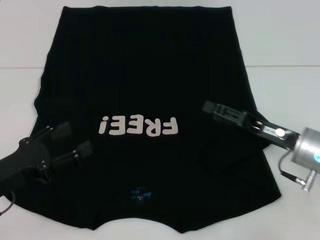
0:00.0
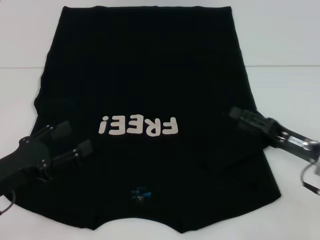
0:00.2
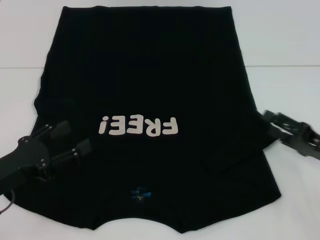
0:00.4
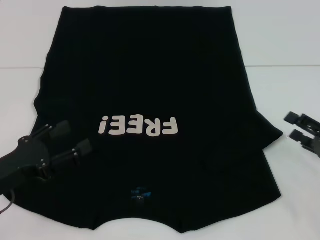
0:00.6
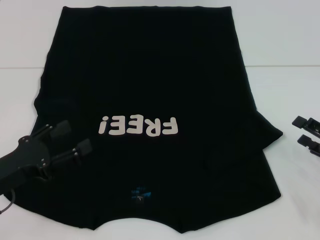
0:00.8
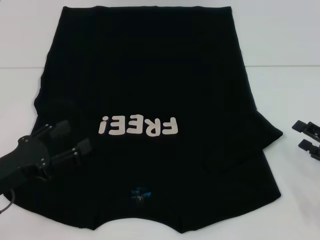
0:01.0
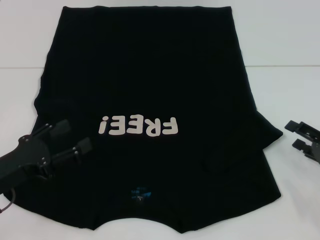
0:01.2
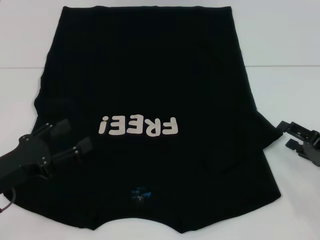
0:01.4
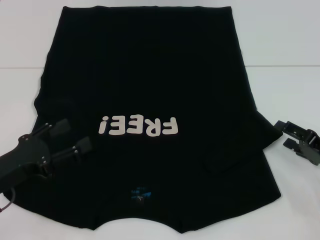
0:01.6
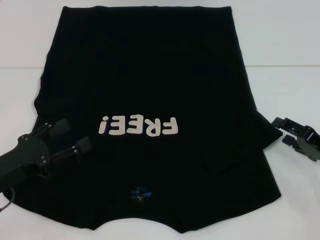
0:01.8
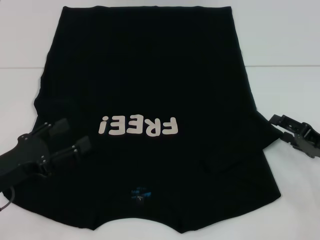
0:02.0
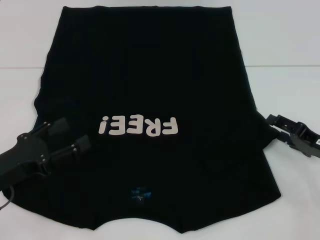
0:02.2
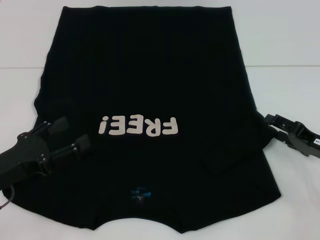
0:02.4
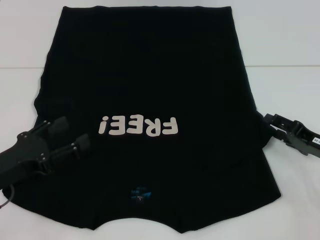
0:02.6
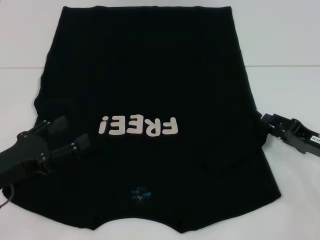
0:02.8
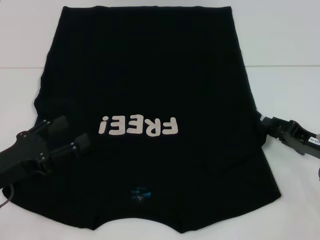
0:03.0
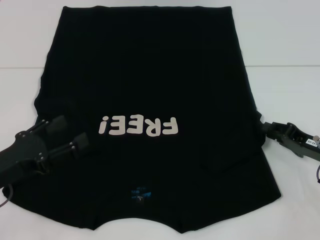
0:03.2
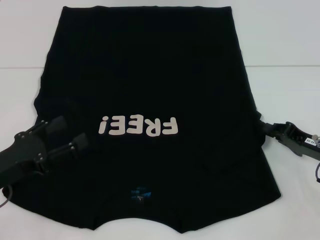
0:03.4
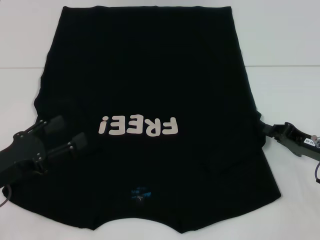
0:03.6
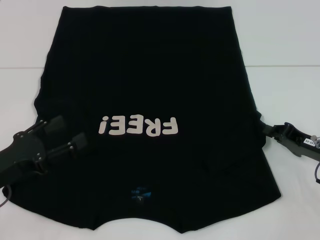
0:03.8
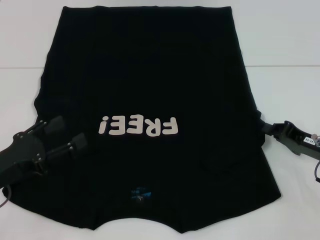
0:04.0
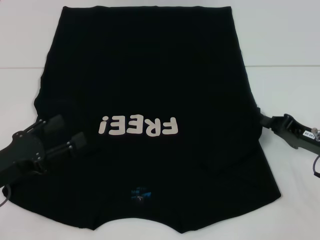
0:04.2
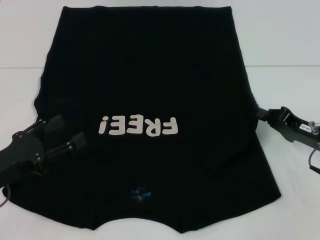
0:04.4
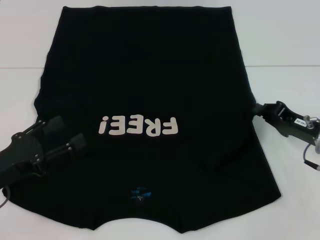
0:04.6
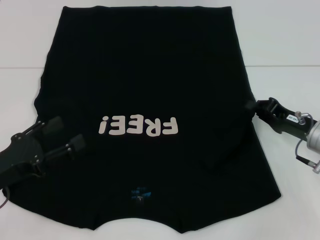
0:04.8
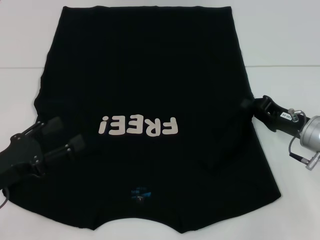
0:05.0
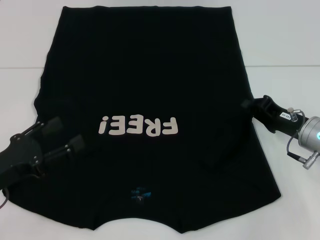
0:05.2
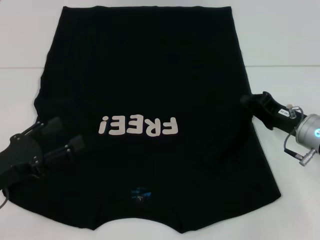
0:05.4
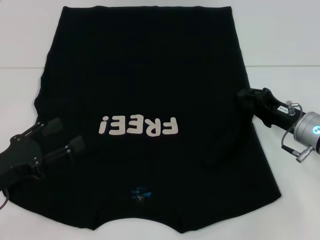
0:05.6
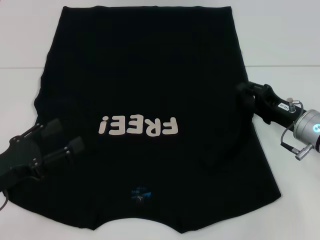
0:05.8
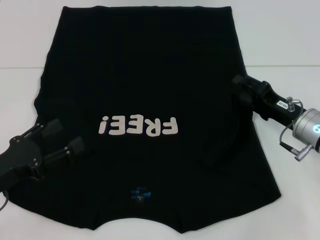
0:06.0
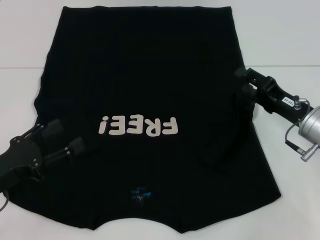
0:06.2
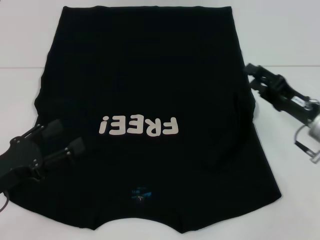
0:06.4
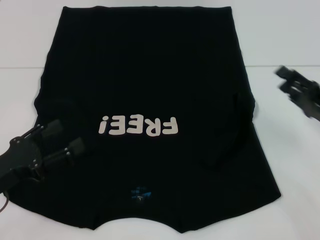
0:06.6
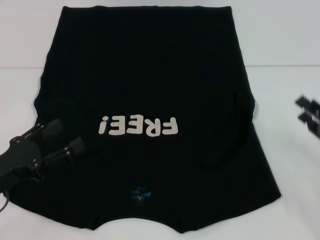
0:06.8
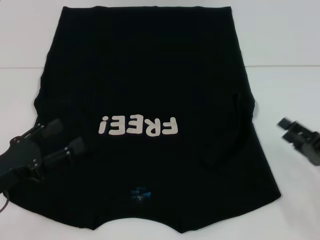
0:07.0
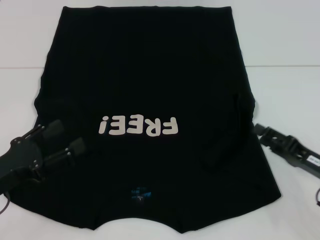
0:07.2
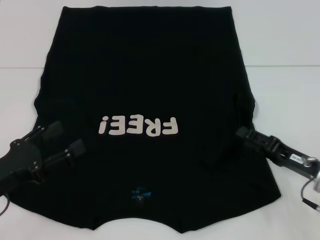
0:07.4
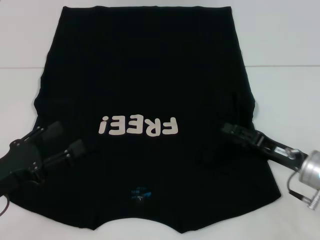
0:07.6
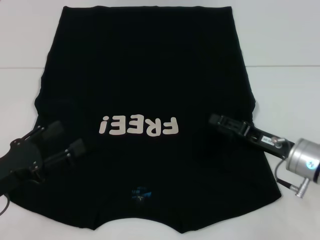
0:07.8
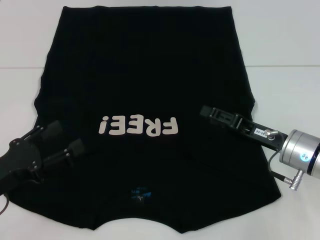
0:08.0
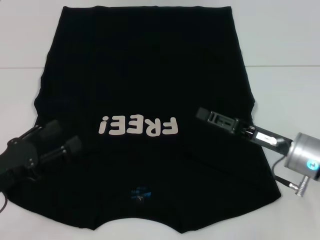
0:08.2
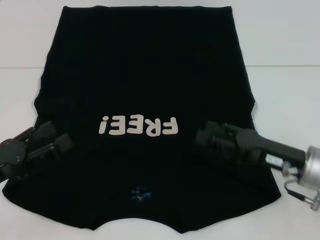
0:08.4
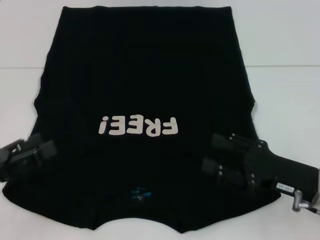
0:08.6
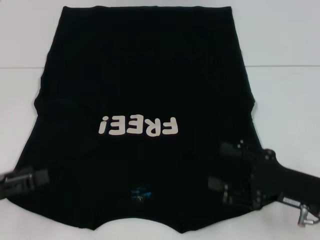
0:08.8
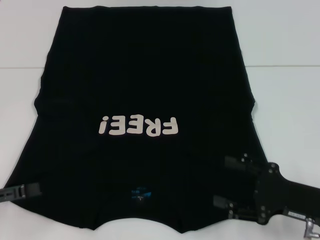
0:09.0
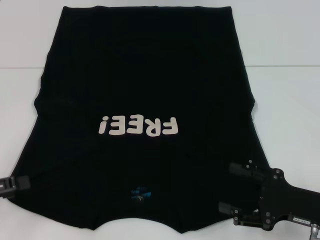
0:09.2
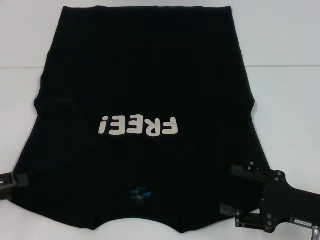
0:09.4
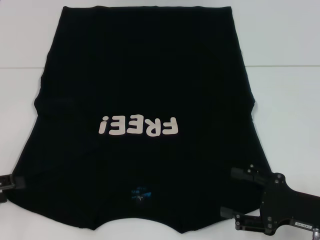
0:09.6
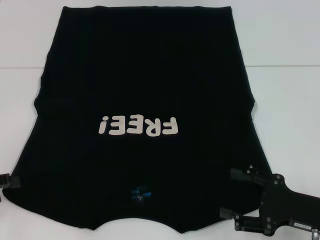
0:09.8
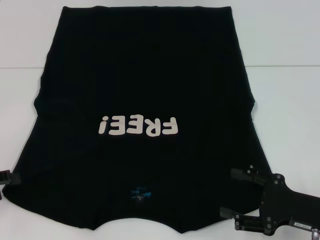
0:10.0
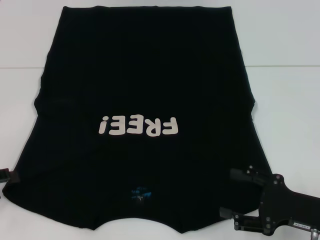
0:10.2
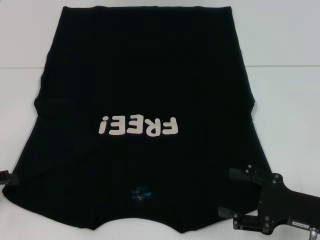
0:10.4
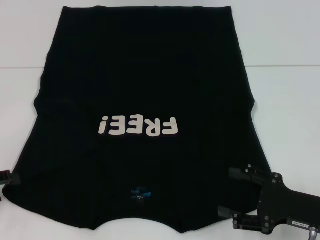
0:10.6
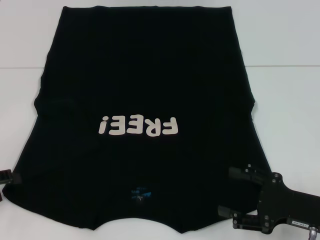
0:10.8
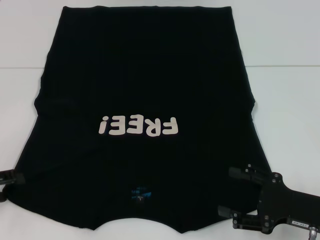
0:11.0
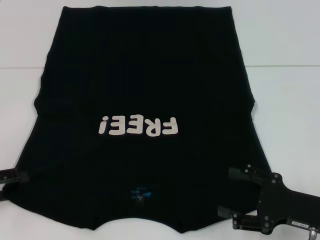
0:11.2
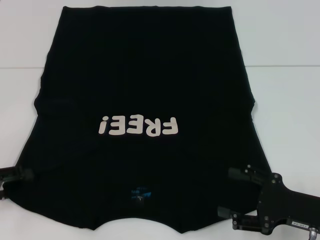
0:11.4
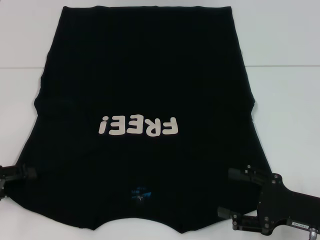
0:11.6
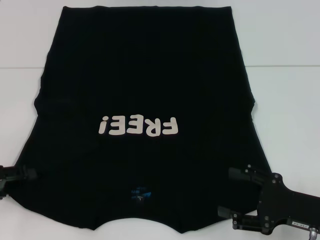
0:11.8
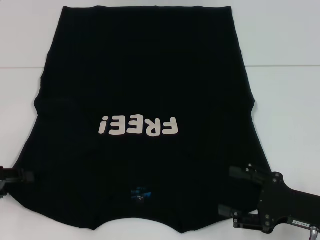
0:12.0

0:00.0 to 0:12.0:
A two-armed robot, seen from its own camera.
0:00.0 to 0:01.6: The right gripper shifts about 10 cm to the right.
0:01.6 to 0:03.0: There are only small adjustments of the grippers.
0:03.0 to 0:04.4: The right gripper closes.
0:04.4 to 0:06.0: The right gripper moves approximately 5 cm, and opens up.
0:06.0 to 0:07.6: The right gripper goes some 5 cm backward.
0:07.6 to 0:09.0: The right gripper moves backward, about 5 cm. The left gripper travels to the left by roughly 5 cm.
0:10.4 to 0:12.0: There are only small adjustments of the grippers.

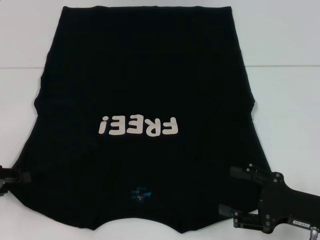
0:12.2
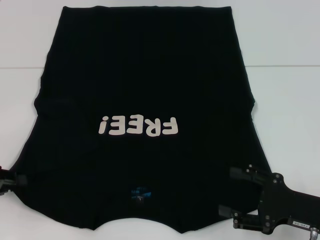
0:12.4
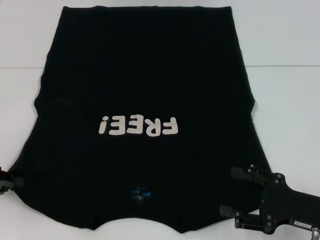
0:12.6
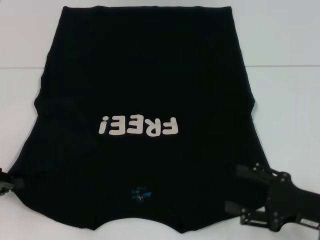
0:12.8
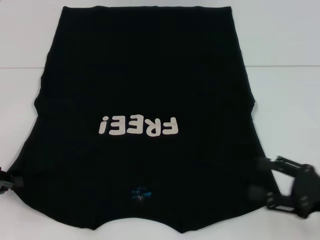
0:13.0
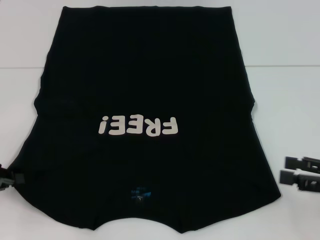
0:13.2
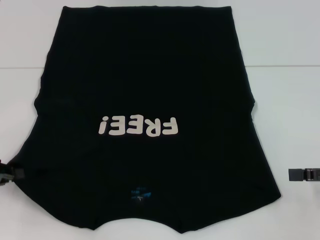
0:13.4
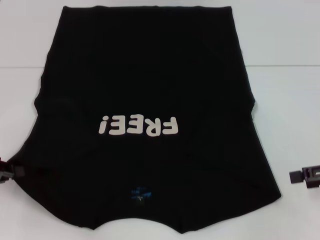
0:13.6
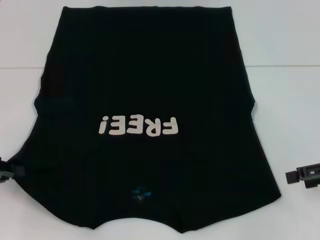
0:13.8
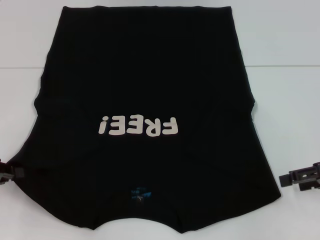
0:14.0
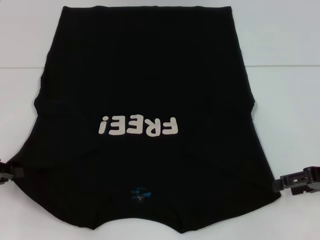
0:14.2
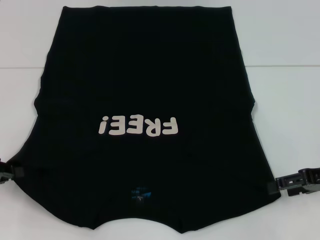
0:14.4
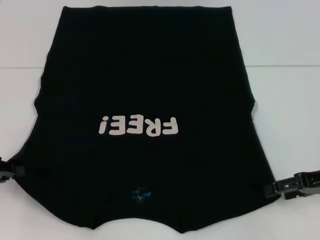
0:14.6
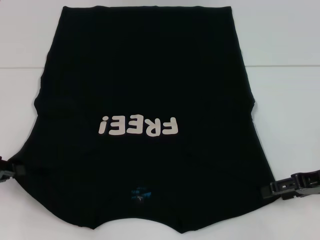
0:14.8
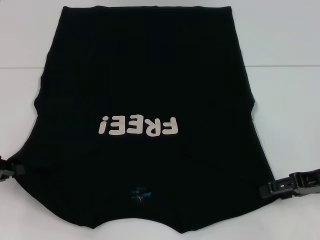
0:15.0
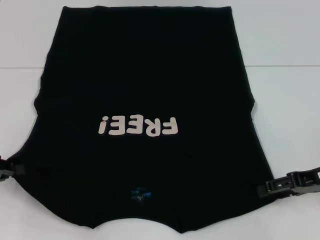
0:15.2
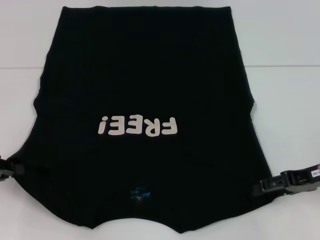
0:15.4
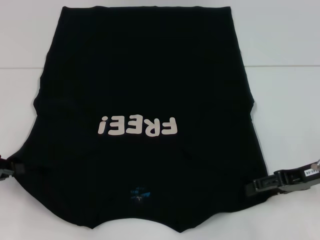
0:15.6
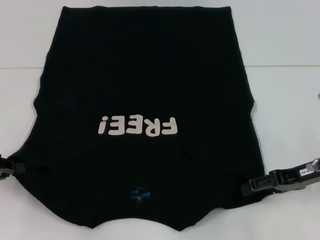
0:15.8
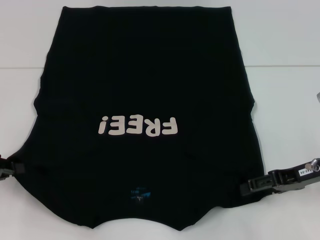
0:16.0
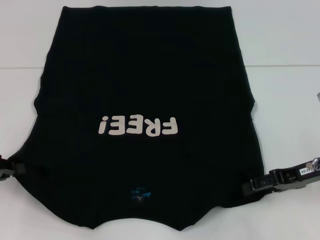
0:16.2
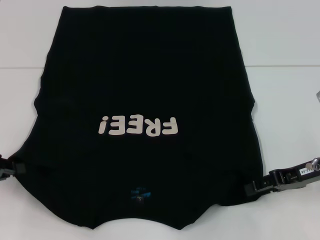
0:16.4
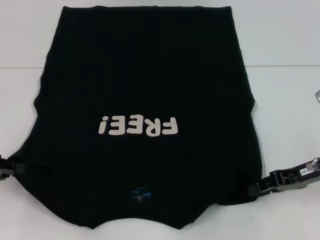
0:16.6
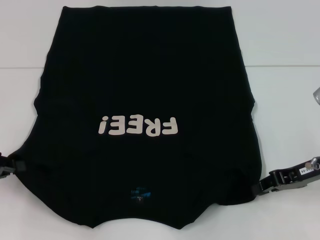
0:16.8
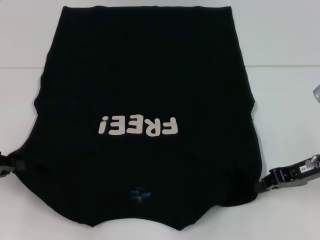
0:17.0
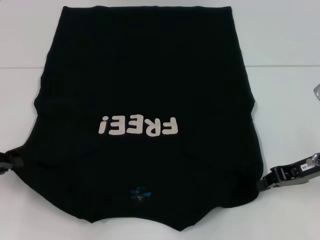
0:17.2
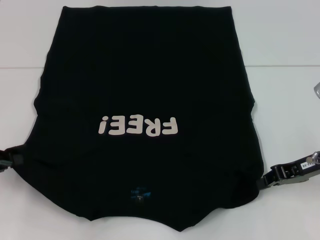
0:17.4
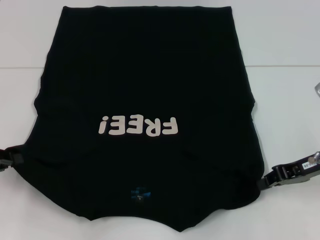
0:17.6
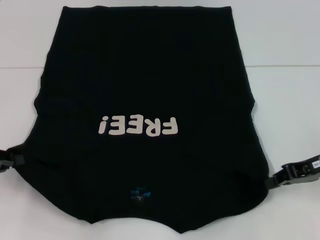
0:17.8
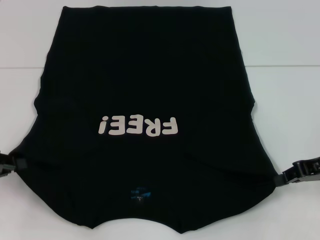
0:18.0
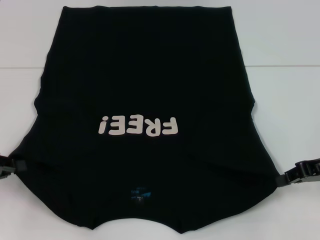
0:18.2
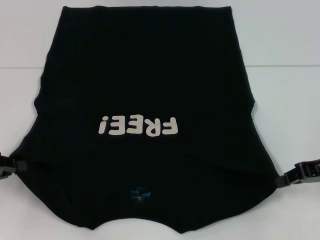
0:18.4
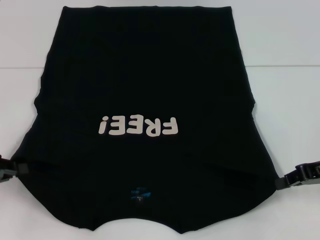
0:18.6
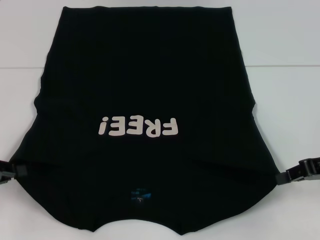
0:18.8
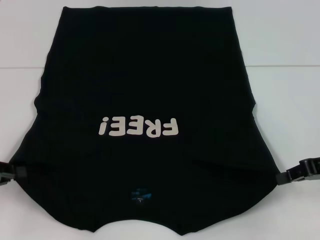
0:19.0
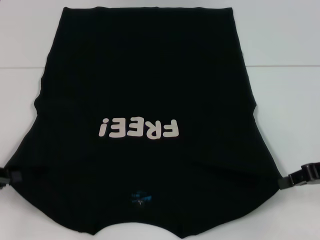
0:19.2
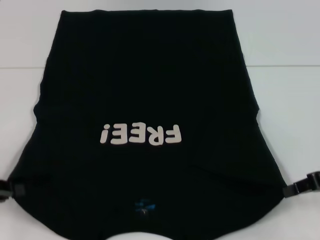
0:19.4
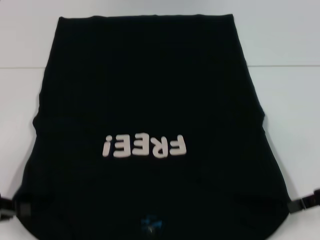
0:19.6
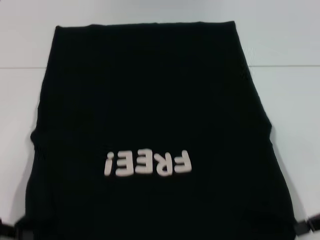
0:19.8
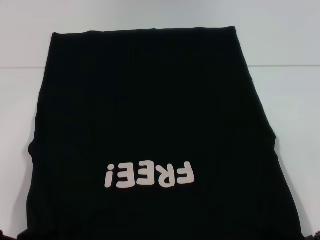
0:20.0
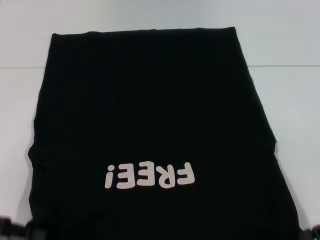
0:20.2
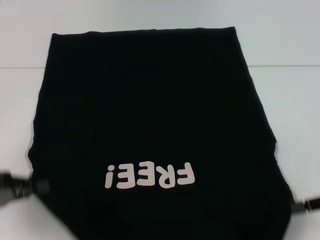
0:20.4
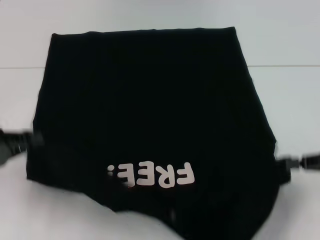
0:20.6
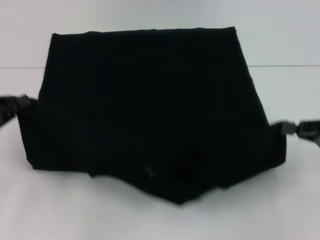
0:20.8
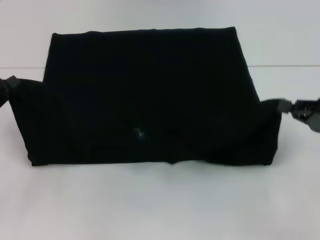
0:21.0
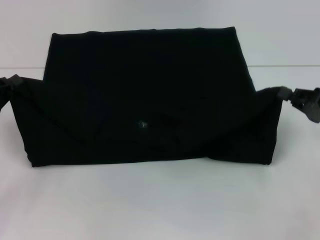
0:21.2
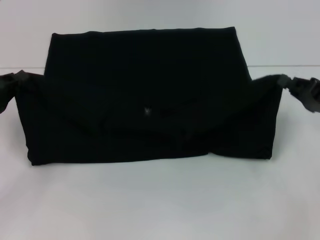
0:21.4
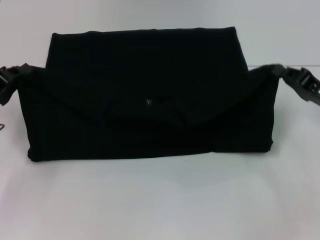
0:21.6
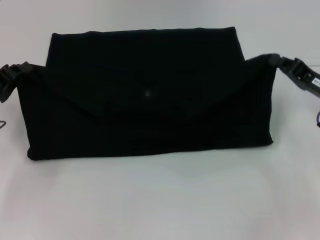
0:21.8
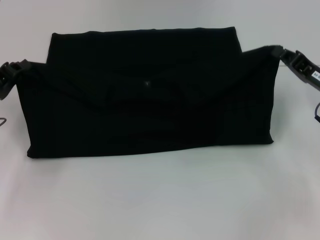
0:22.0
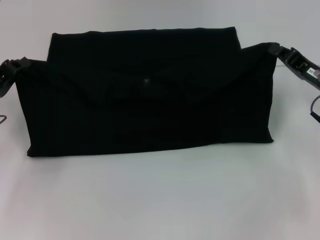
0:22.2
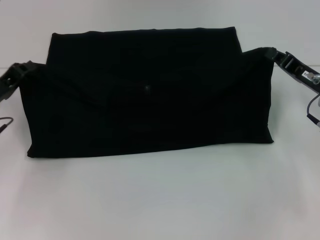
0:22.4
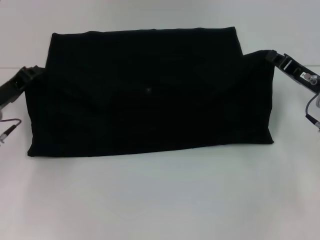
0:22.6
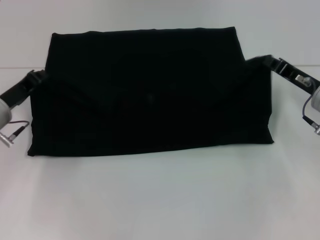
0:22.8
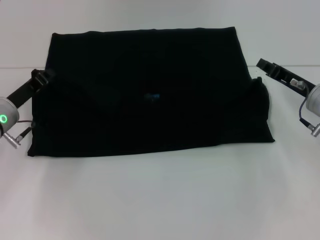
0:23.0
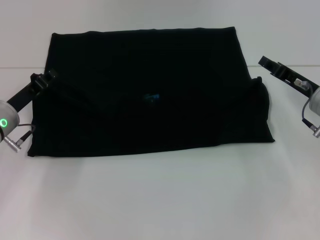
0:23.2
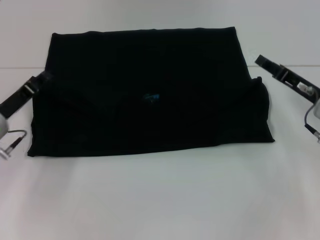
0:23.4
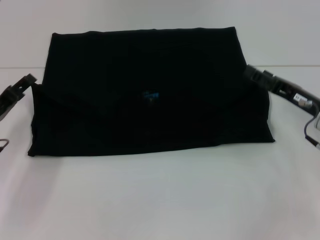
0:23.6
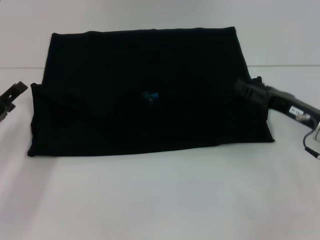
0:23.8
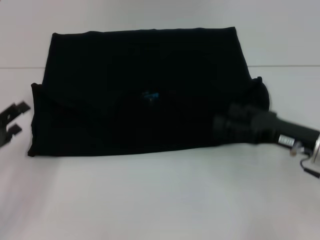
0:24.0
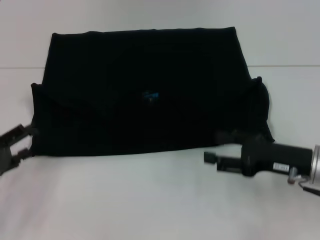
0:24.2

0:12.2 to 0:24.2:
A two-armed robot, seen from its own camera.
Step, 0:13.6 to 0:17.0: Grab the bottom right corner with your right hand.
Step, 0:17.2 to 0:24.2: Fold the clothes with your left hand.
Step, 0:17.2 to 0:24.2: Fold the clothes with your right hand.
0:12.2 to 0:13.8: The right gripper goes roughly 15 cm upward, forward and to the right, while the left gripper closes.
0:13.8 to 0:15.2: The right gripper changes place by some 5 cm.
0:15.2 to 0:16.6: The right gripper closes up.
0:16.6 to 0:18.2: The right gripper closes.
0:18.2 to 0:19.8: The right gripper changes place by some 5 cm. The left gripper moves backward, approximately 5 cm.
0:19.8 to 0:21.2: The left gripper goes about 10 cm forward.
0:21.2 to 0:22.6: The left gripper travels forward by approximately 5 cm. The right gripper is displaced forward and to the left by approximately 10 cm.
0:22.6 to 0:24.2: Both grippers travel together backward, some 10 cm. The left gripper opens up, while the right gripper opens.
